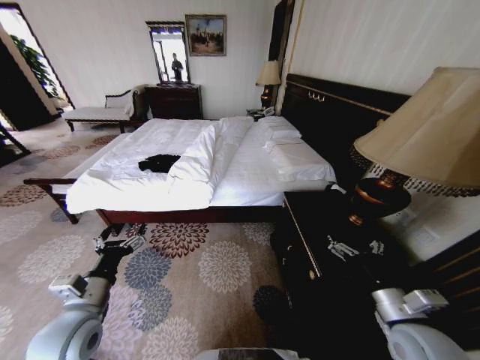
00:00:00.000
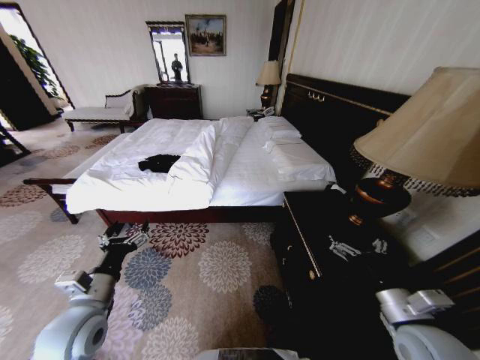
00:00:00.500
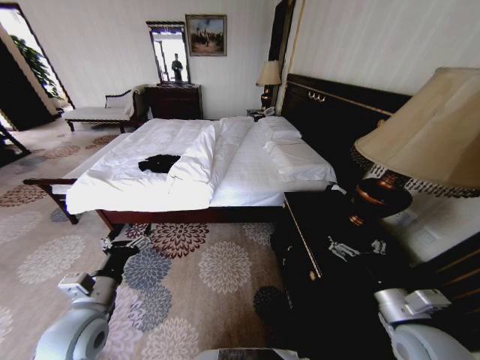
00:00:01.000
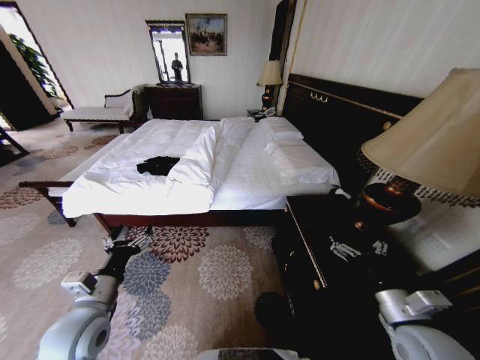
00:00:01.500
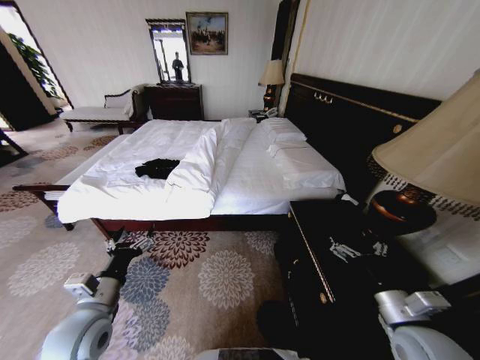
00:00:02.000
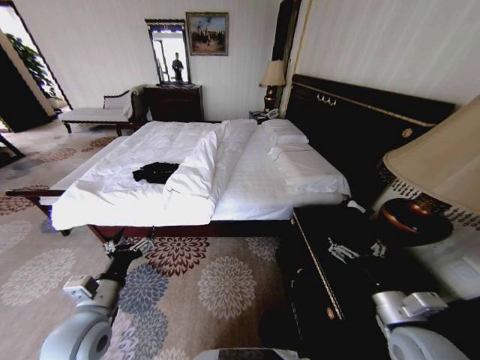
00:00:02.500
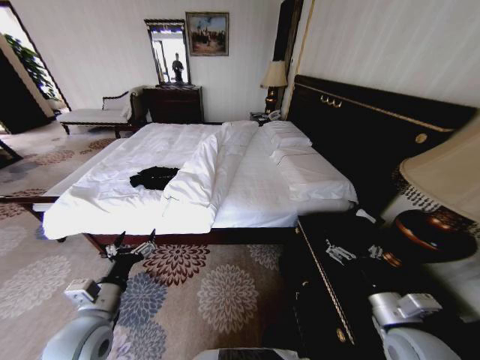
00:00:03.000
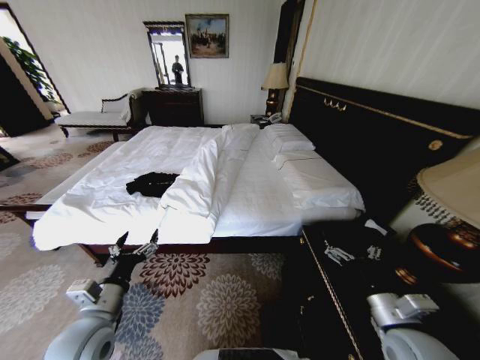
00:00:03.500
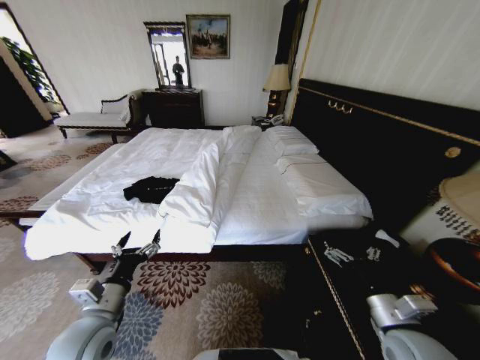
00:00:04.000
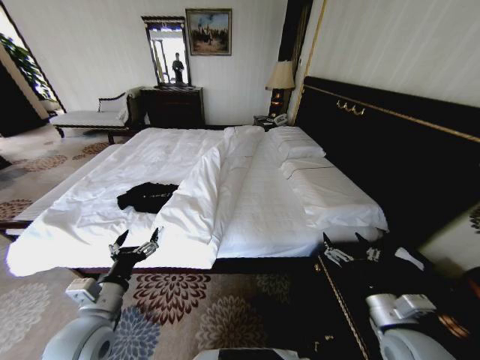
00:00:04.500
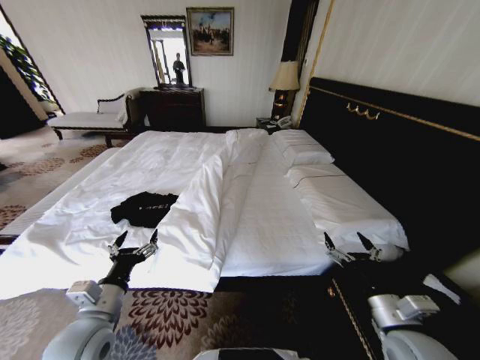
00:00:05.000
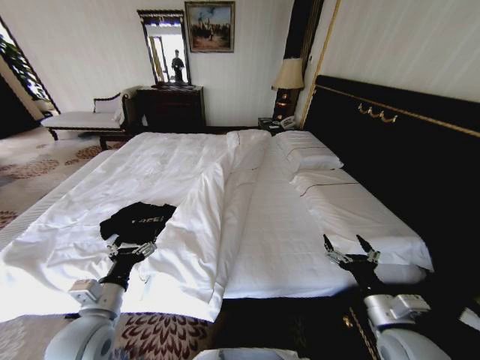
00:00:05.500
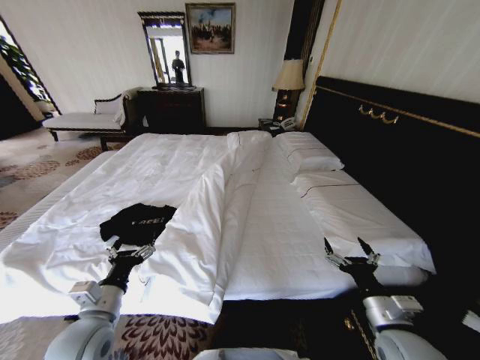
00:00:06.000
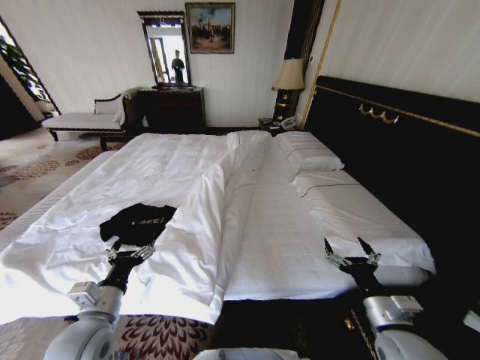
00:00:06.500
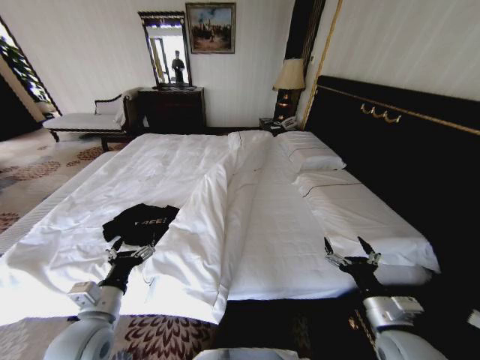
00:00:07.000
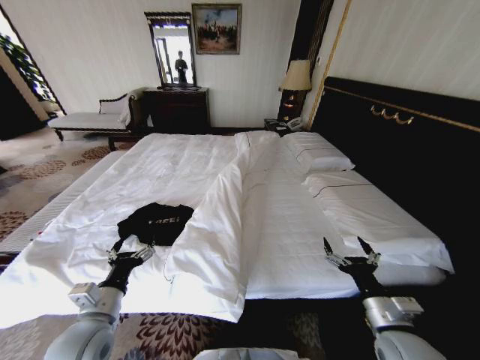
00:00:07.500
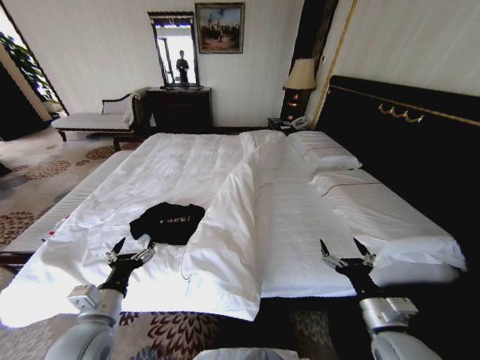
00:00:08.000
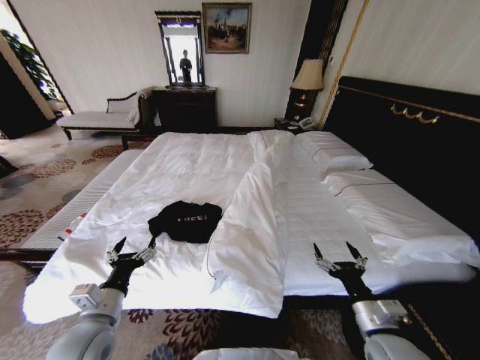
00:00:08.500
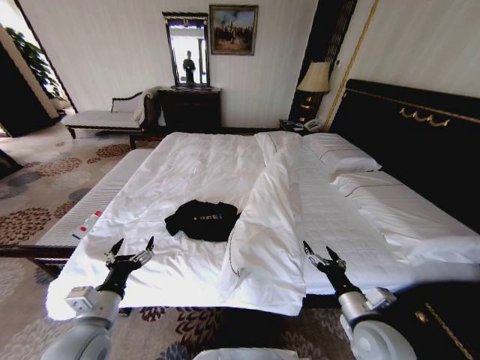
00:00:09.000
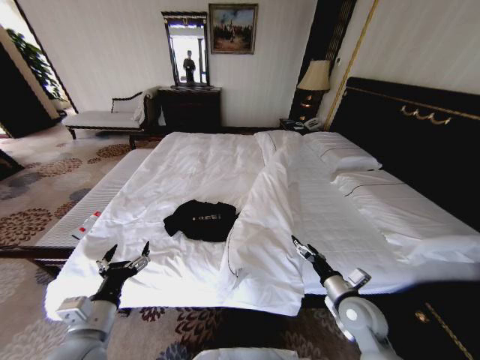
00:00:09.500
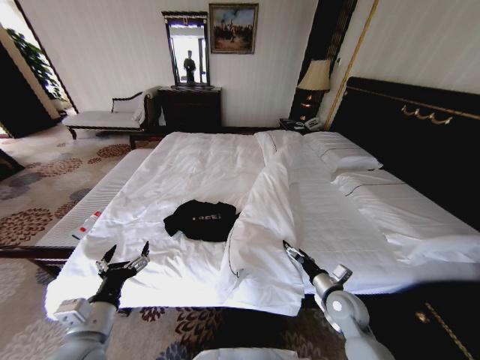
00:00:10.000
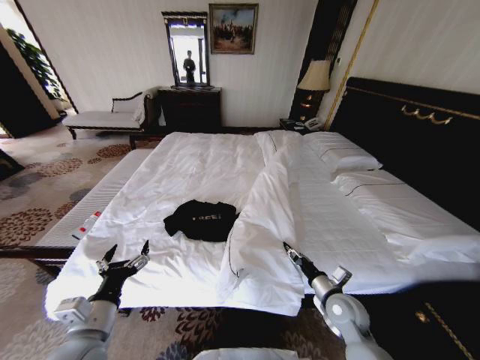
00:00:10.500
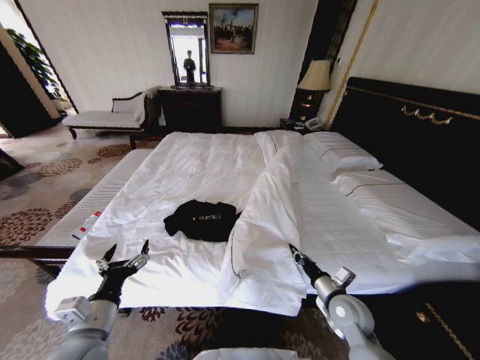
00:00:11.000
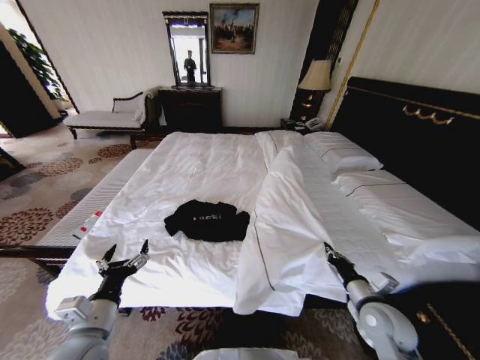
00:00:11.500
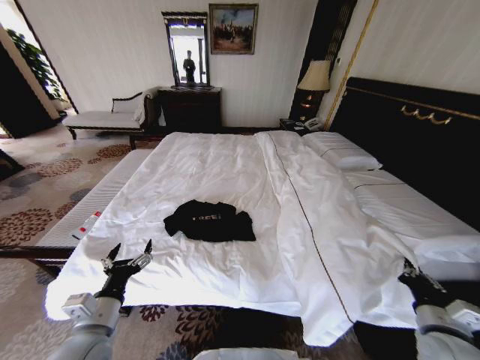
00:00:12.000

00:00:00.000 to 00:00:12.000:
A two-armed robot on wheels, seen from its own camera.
Task of the whole recording: Fold the clothes on the bed.
00:00:08.000 to 00:00:10.000: The right gripper shifts roughly 15 cm forward and downward.
00:00:10.000 to 00:00:12.000: The right gripper travels to the right, backward and upward by some 20 cm, and closes.

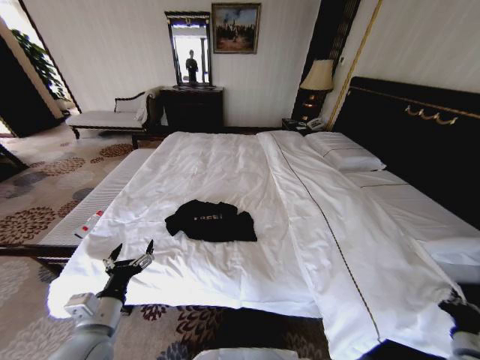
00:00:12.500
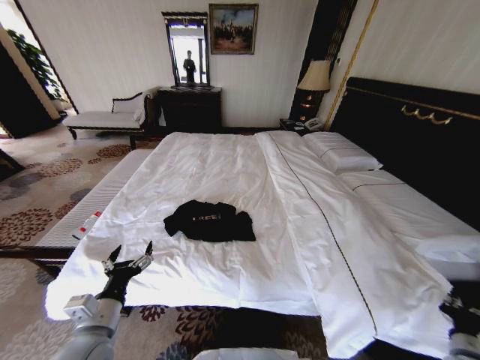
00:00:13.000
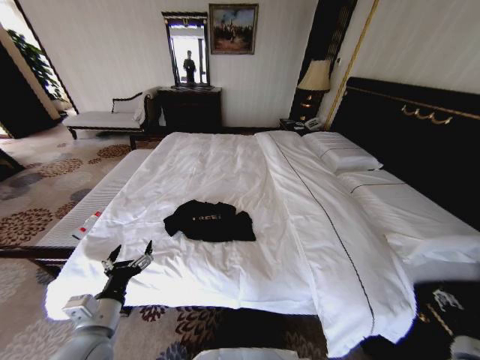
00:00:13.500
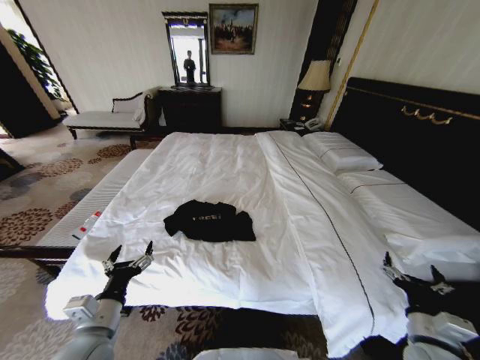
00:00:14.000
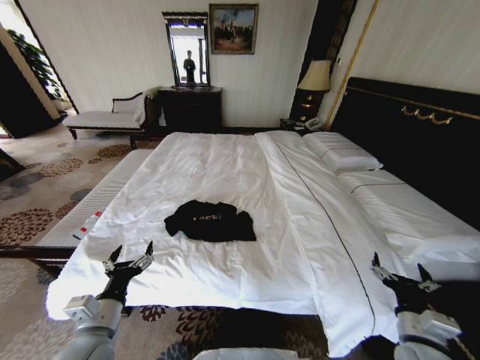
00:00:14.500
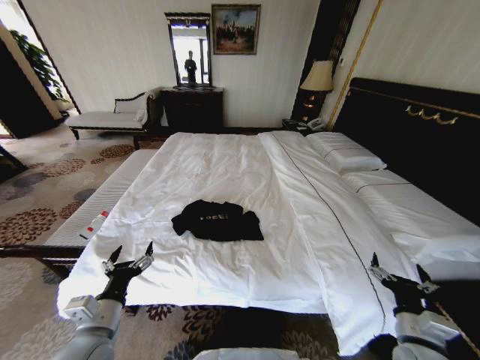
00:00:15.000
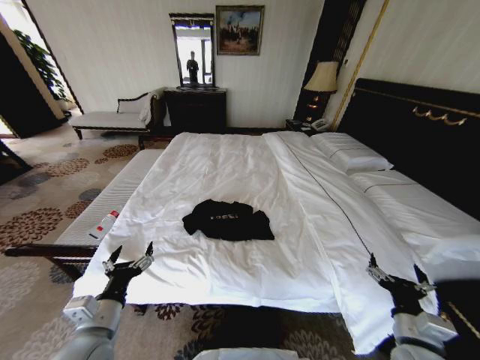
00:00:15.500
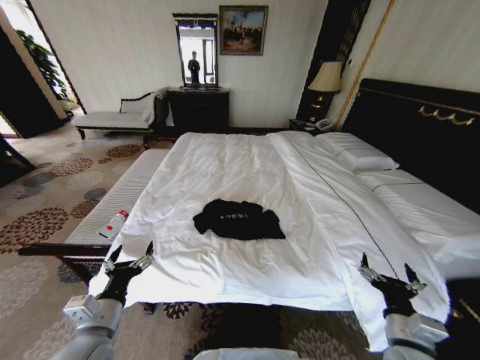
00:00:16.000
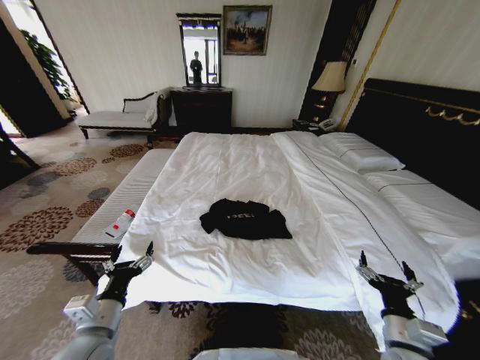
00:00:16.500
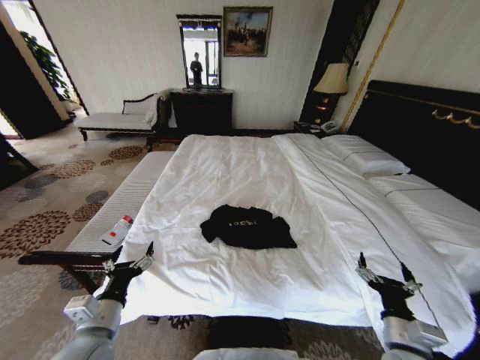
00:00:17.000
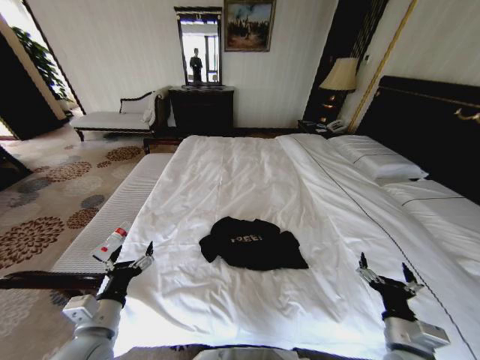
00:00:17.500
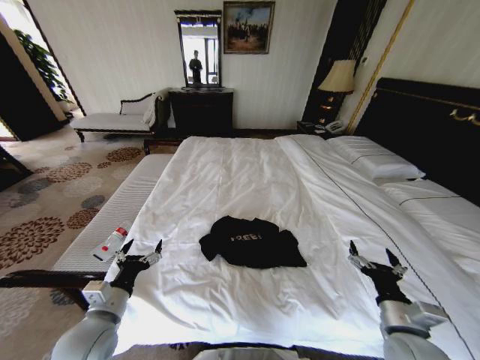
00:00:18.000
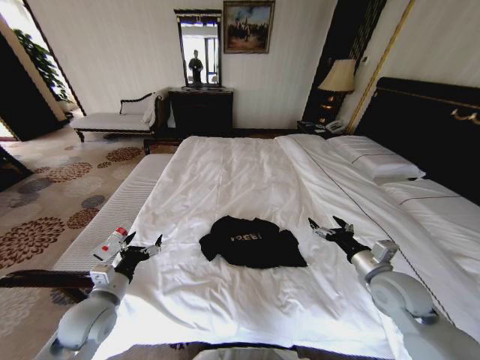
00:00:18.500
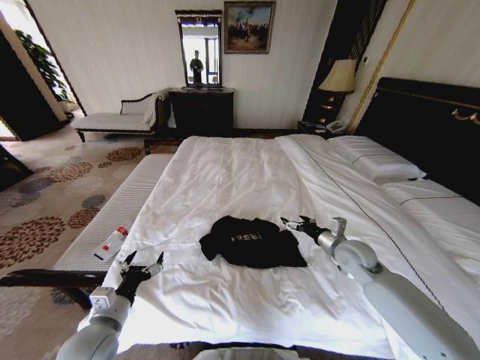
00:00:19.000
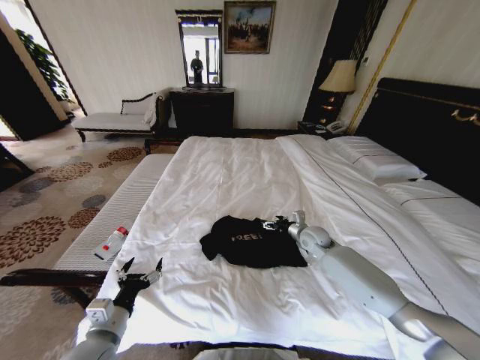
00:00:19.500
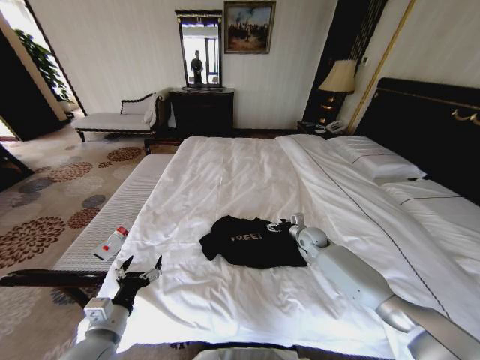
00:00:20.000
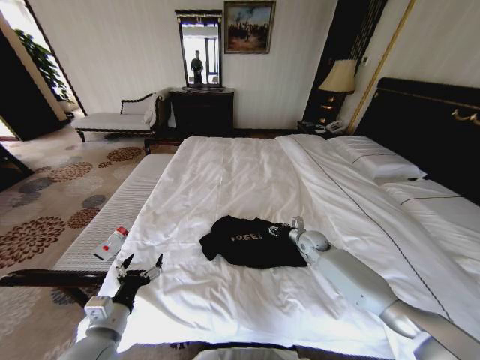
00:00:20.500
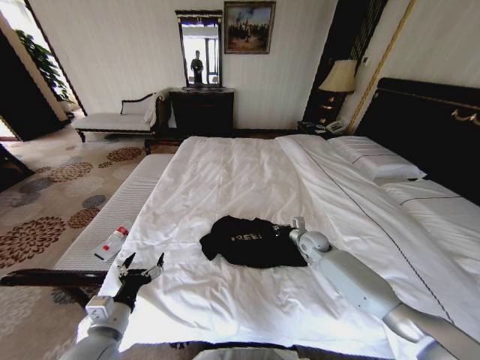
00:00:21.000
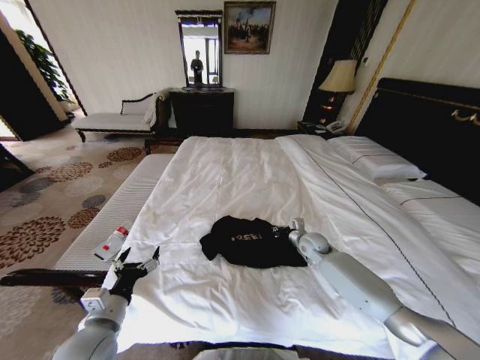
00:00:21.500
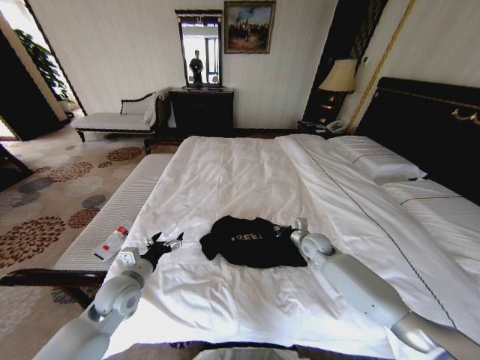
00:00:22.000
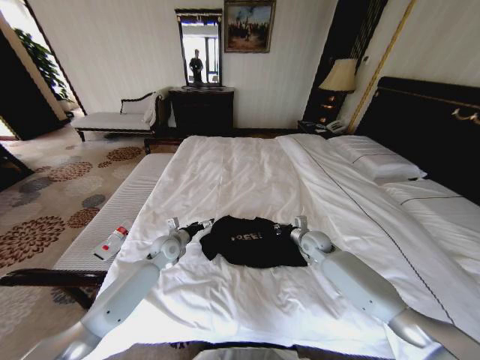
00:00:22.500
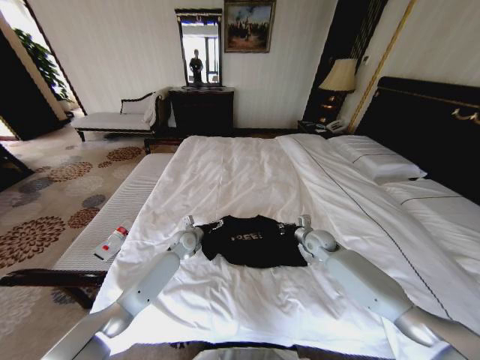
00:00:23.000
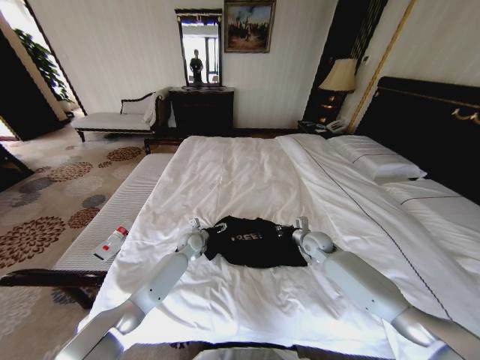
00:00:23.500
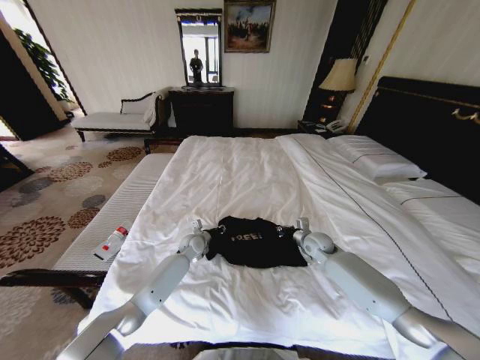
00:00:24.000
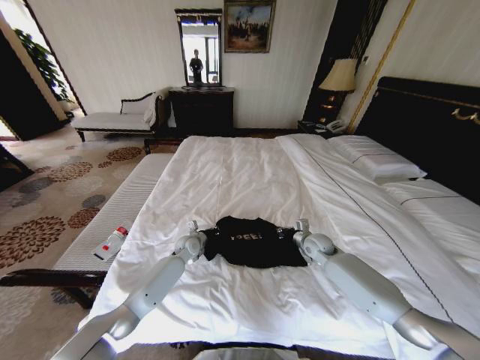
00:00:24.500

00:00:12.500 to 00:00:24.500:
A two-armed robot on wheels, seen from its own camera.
Task of the whole recording: Fold the clothes on the bed.
00:00:12.500 to 00:00:14.500: The right gripper heads to the left, covering approximately 10 cm, and opens.
00:00:16.500 to 00:00:18.500: The left gripper travels forward by some 5 cm, while the right gripper heads forward and upward, covering some 15 cm.
00:00:18.500 to 00:00:20.500: The right gripper moves forward and downward, some 25 cm, and closes up. Meanwhile the left gripper travels backward by approximately 5 cm.
00:00:20.500 to 00:00:22.500: The right gripper closes up, while the left gripper goes some 30 cm forward.
00:00:22.500 to 00:00:24.500: The left gripper heads downward and to the right, covering roughly 10 cm, and closes.

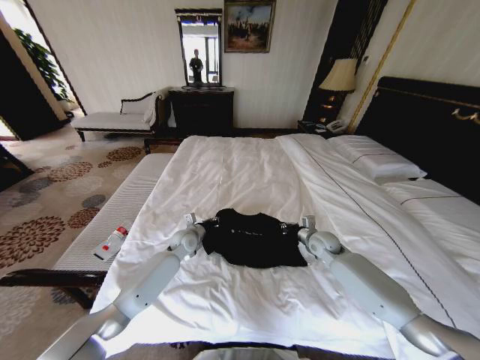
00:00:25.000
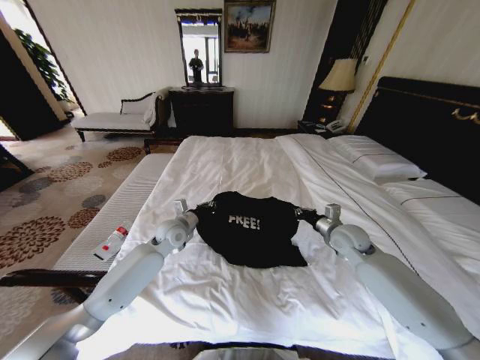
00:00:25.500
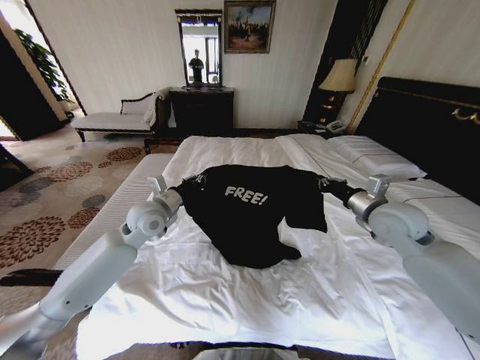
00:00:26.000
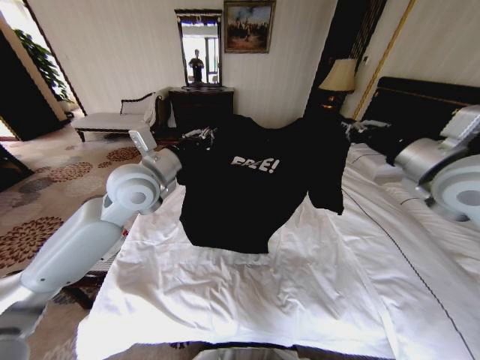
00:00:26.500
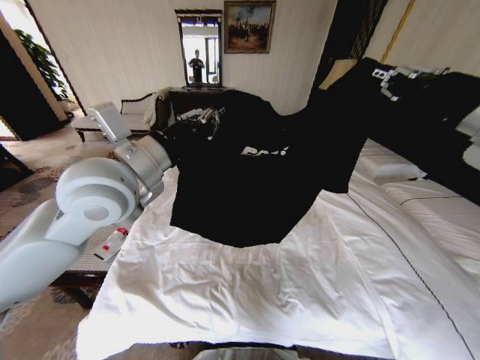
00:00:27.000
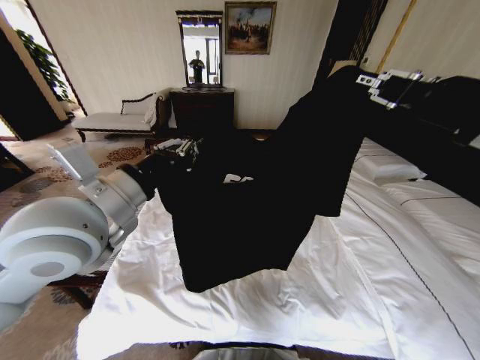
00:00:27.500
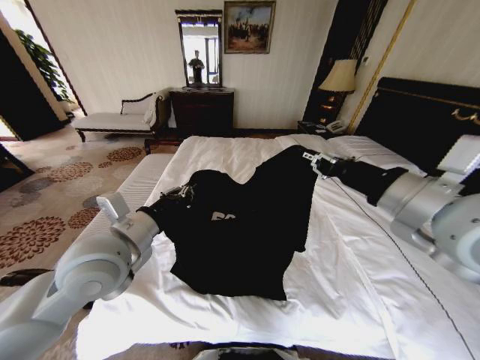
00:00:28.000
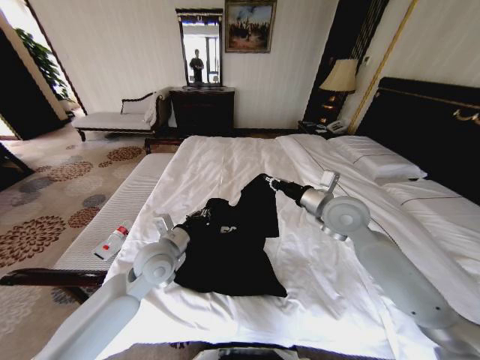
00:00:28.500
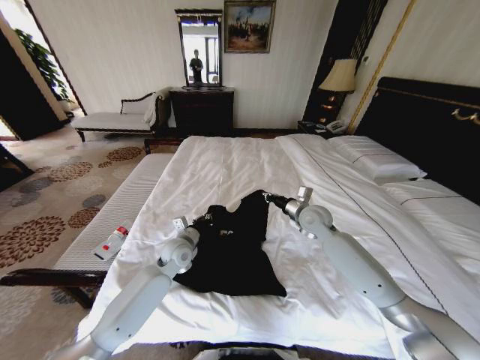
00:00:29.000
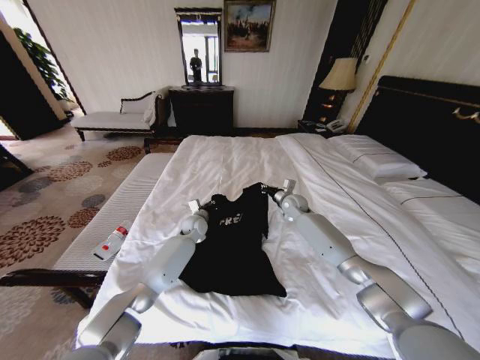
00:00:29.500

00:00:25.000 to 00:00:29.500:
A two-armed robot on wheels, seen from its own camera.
Task of the whole recording: Fold the clothes on the bed.
00:00:25.000 to 00:00:27.000: The grippers both shift upward by about 40 cm.
00:00:27.000 to 00:00:29.500: The grippers both shift downward and forward by some 40 cm.
